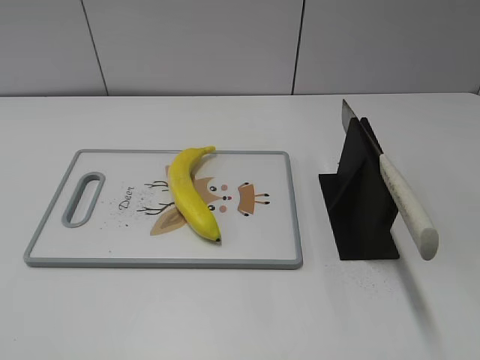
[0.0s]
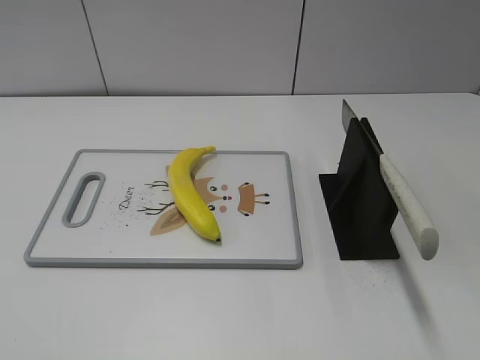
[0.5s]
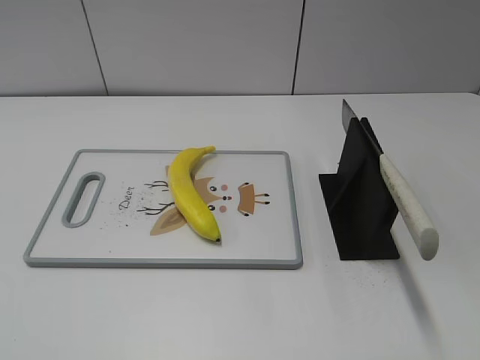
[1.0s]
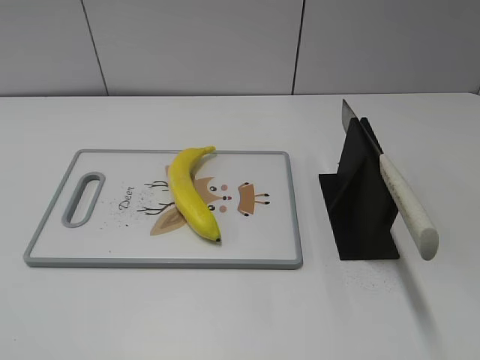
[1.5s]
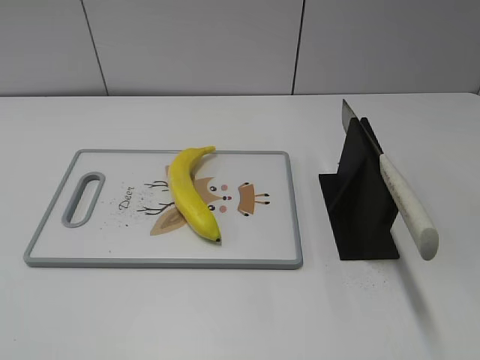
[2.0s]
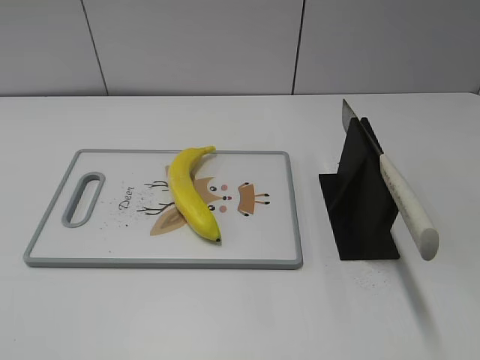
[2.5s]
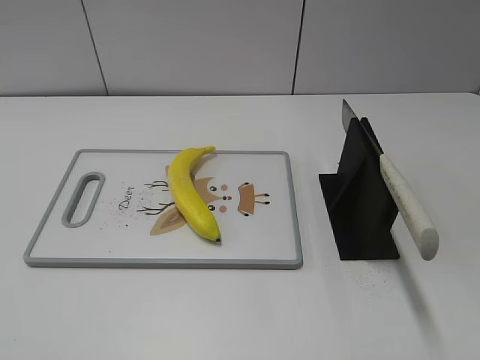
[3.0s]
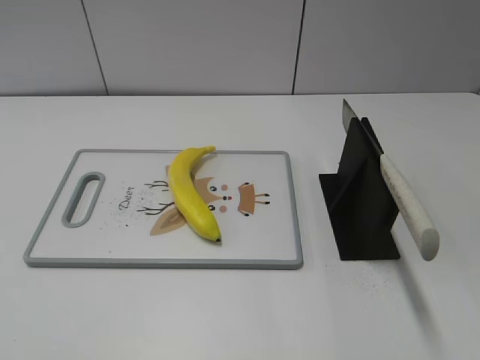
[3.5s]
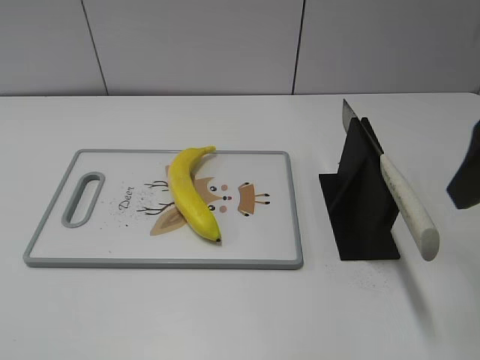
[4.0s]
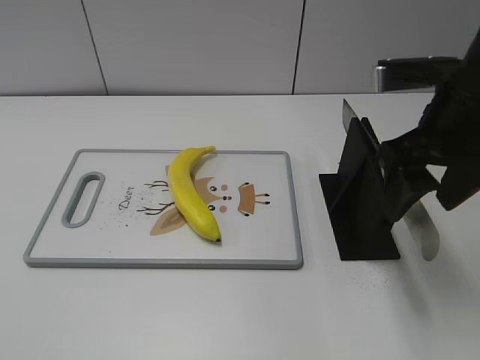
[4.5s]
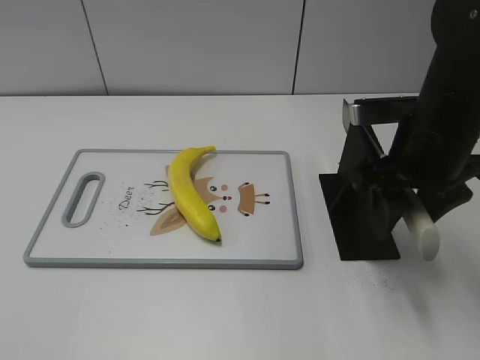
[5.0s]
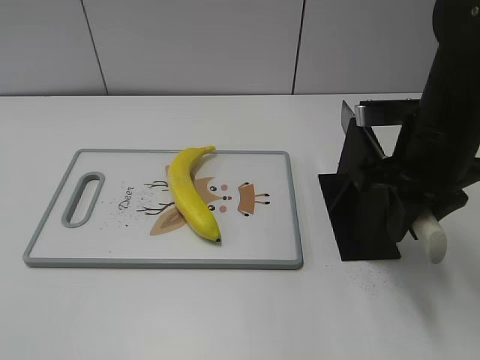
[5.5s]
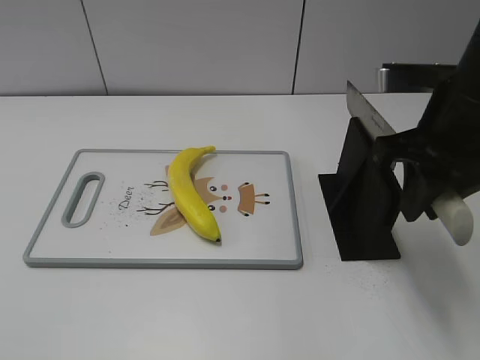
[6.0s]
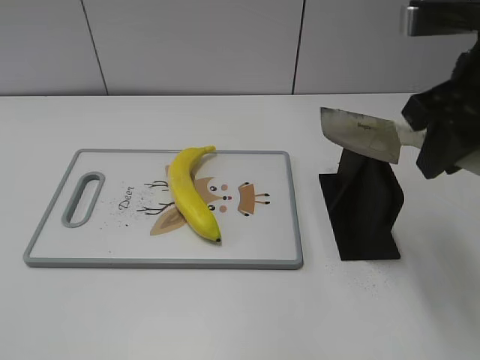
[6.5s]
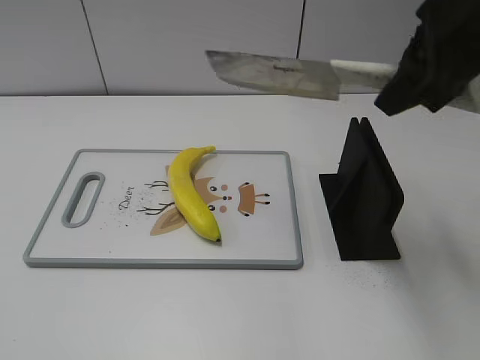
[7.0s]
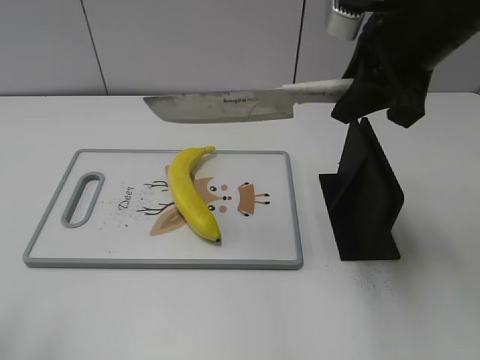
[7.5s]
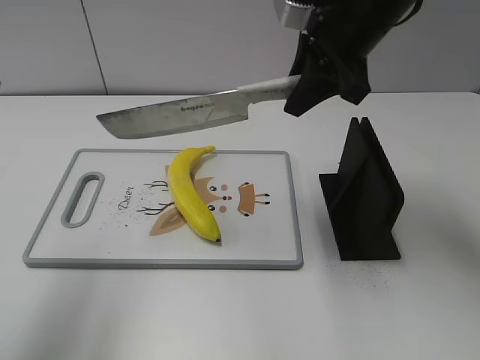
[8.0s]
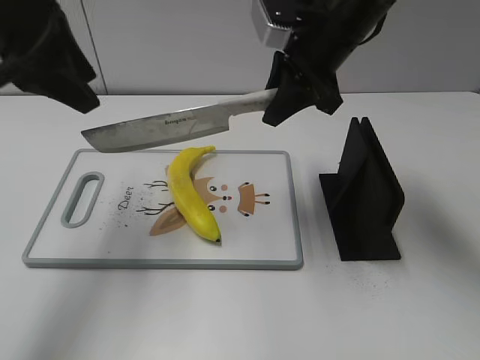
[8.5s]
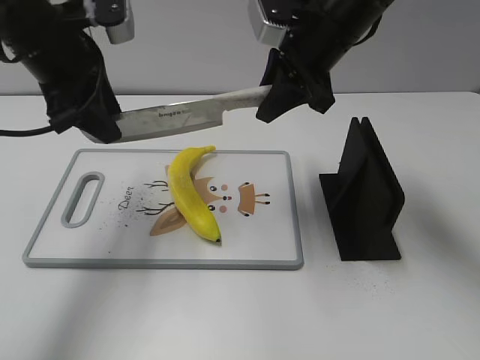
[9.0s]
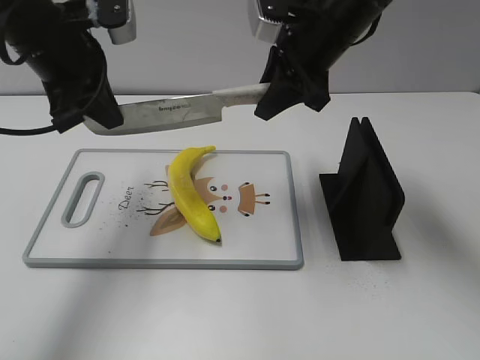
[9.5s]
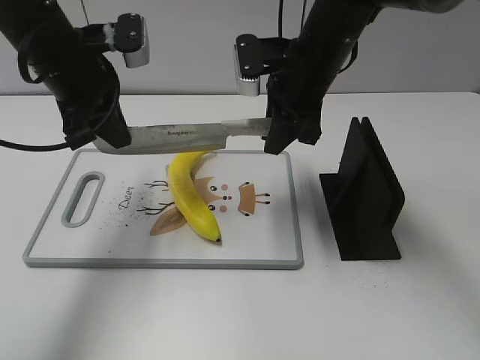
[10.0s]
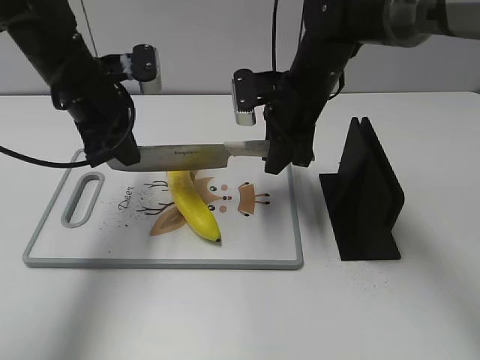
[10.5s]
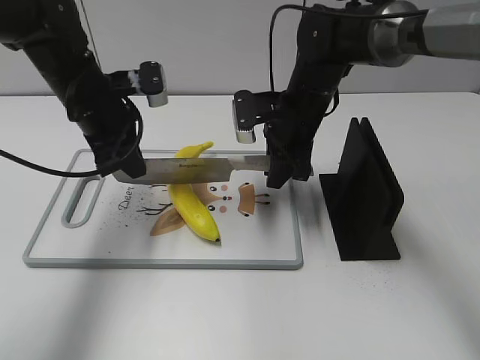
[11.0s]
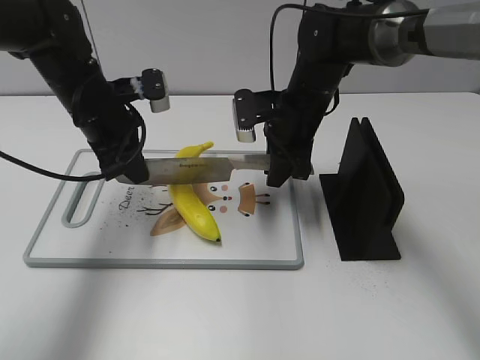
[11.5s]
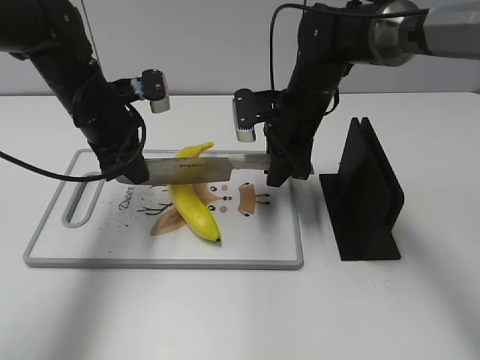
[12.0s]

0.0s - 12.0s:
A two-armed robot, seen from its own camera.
Task of the whole recording: cut plastic banana.
Step, 0.0s - 6.5s: Grab the knife handle with your right hand.
Step, 7.0s - 11.5s: Lift the knife with your right hand.
2.0s - 4.0s: The right gripper is displaced forward by roughly 20 cm.
4.0s - 6.0s: The right gripper travels downward, forward and to the left by about 10 cm, and closes its fingers.
6.0s - 8.0s: The left gripper is displaced forward by roughly 20 cm, while the right gripper goes roughly 10 cm forward and to the left.
8.0s - 10.0s: The right gripper heads downward, covering roughly 10 cm. Meanwhile the left gripper heads forward, downward and to the right, covering some 20 cm, and closes its fingers.
10.0s - 12.0s: Both grippers travel together downward, some 10 cm.

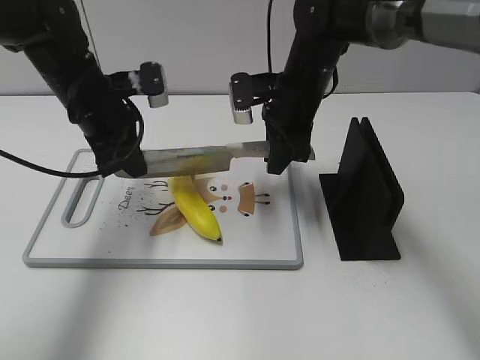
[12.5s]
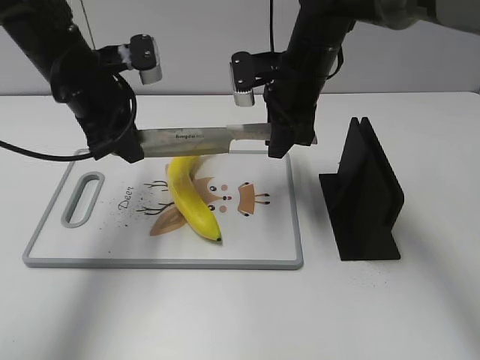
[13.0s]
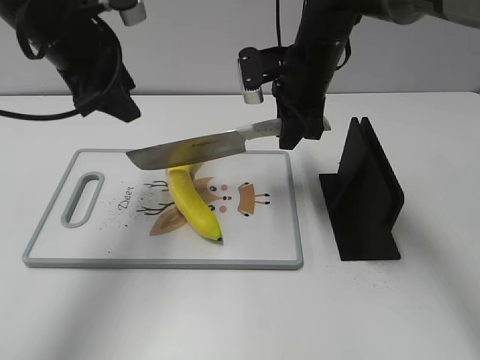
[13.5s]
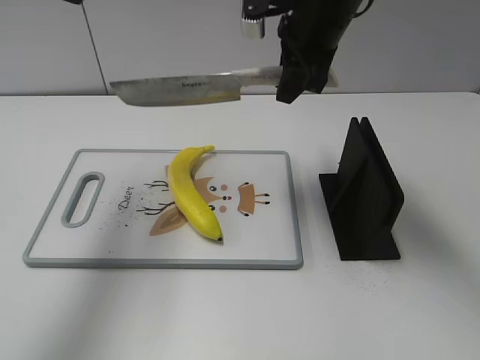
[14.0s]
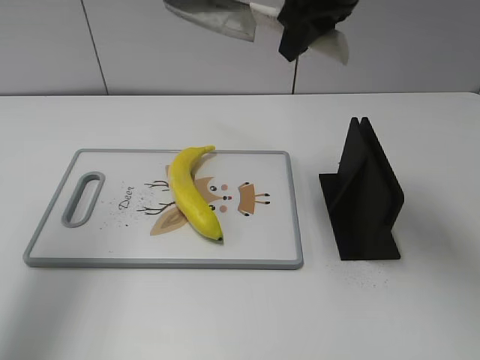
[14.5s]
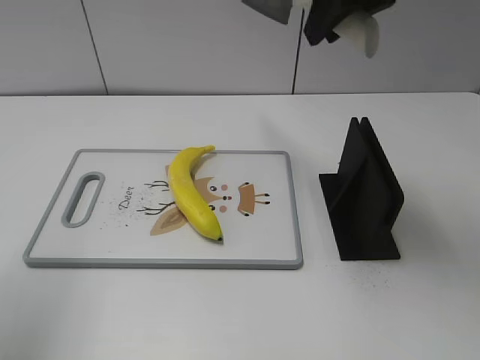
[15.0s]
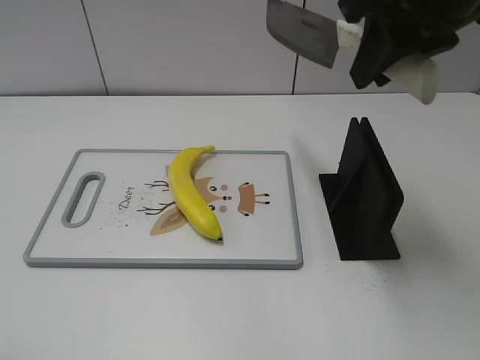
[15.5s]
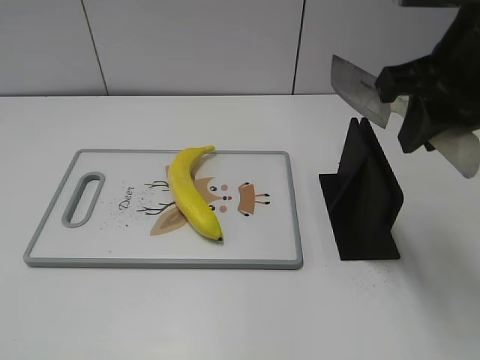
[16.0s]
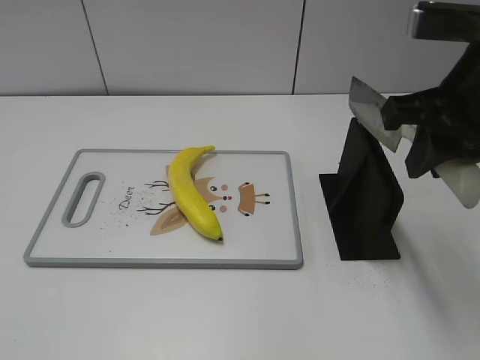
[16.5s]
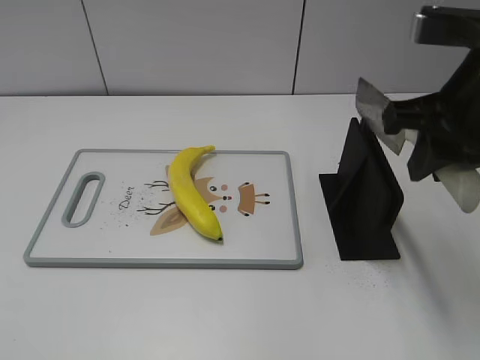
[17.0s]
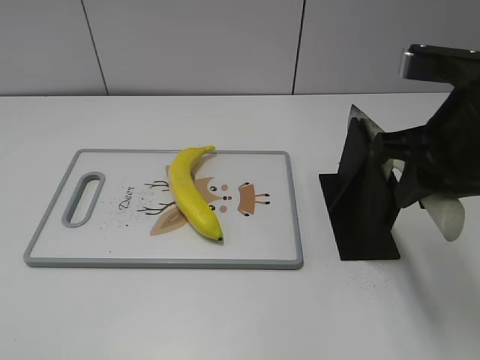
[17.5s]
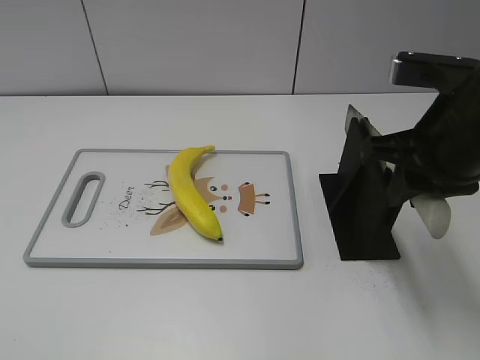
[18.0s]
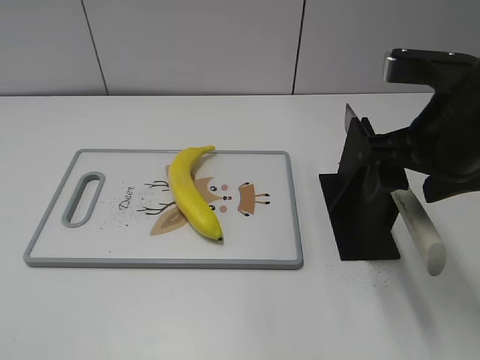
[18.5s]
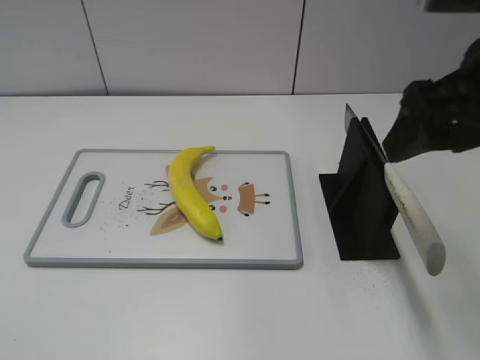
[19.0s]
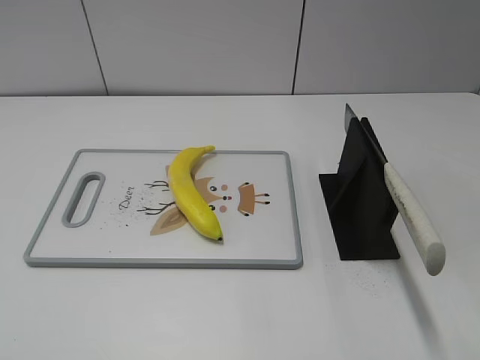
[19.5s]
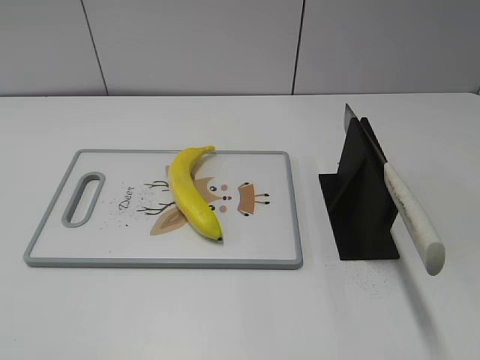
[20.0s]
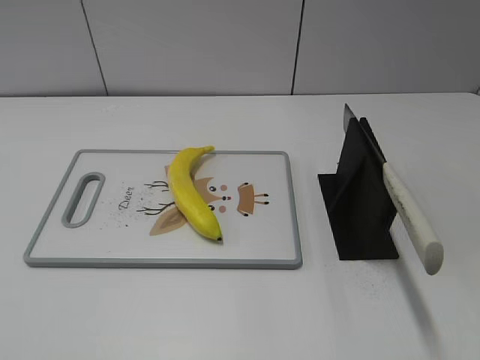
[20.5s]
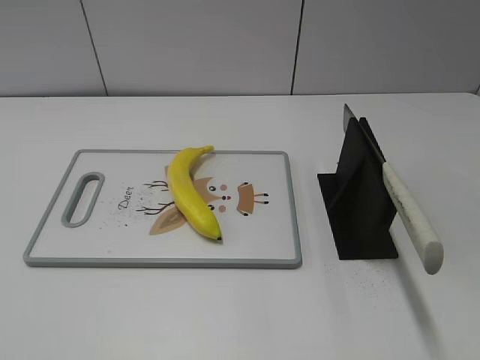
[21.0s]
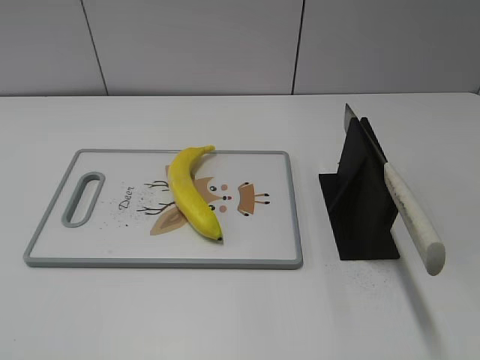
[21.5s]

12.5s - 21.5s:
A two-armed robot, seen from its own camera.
Task of the whole recording: cut plastic banana.
Step, 12.5s - 15.0s: Cut the banana with your right hand.
Step, 15.5s - 16.0s: Lift the knife with your right hand.
Step, 16.5s - 21.5s: Place the knife on the storage rack with your right hand.
12.5s - 14.5s: The right gripper shifts about 15 cm upward, while the left gripper heads upward, to the left and backward, covering about 25 cm, and opens.
14.5s - 17.0s: The right gripper moves backward and to the right, about 15 cm, while the left gripper is displaced backward by roughly 30 cm.
17.0s - 19.5s: The right gripper moves backward, approximately 10 cm, and opens its fingers.
